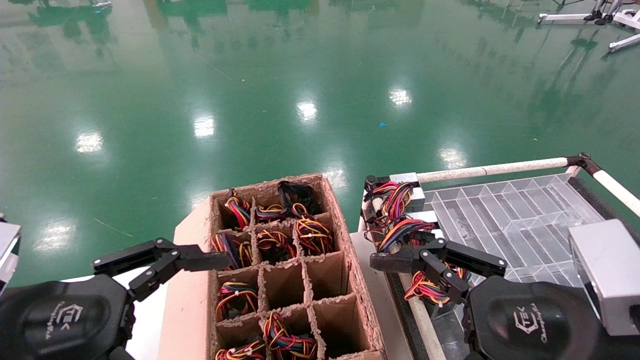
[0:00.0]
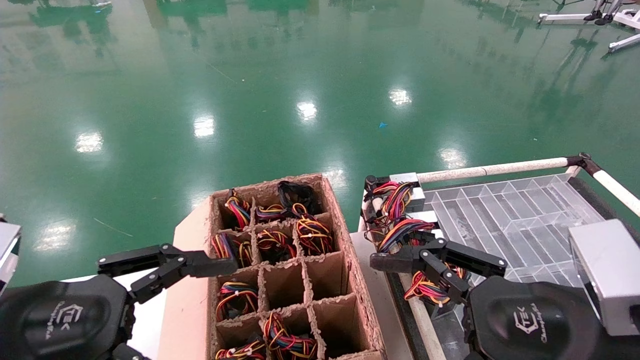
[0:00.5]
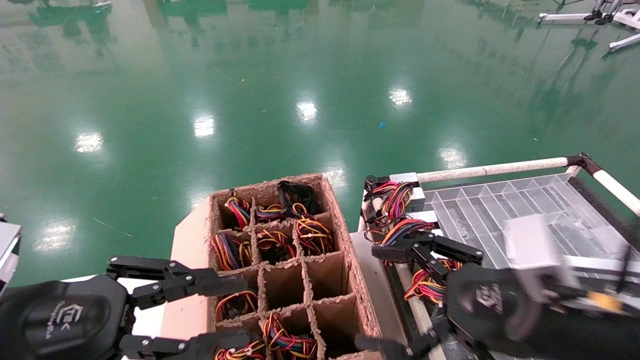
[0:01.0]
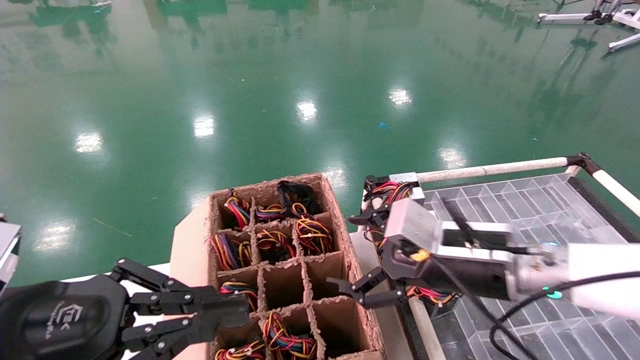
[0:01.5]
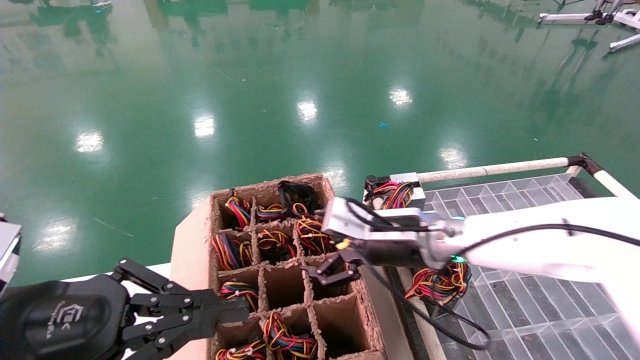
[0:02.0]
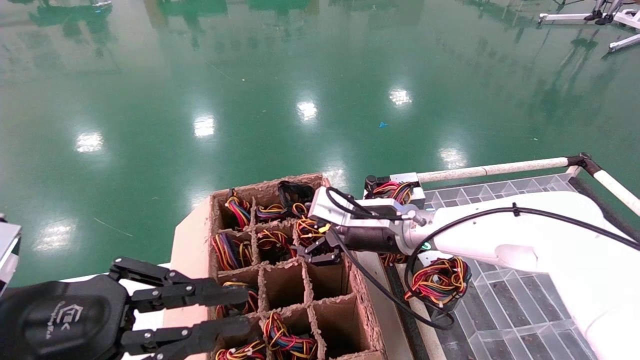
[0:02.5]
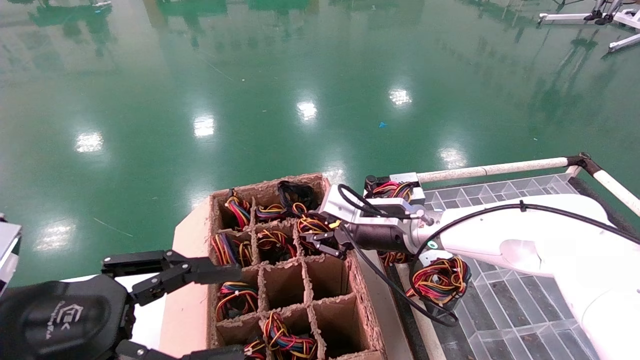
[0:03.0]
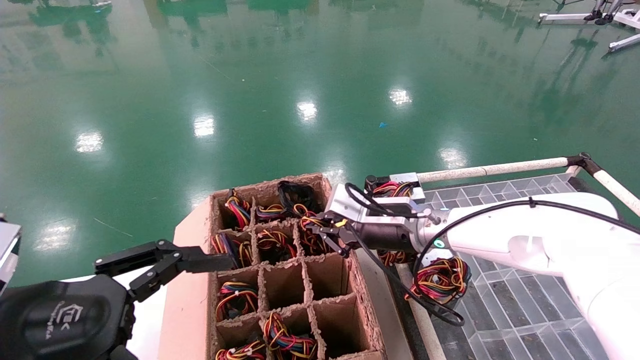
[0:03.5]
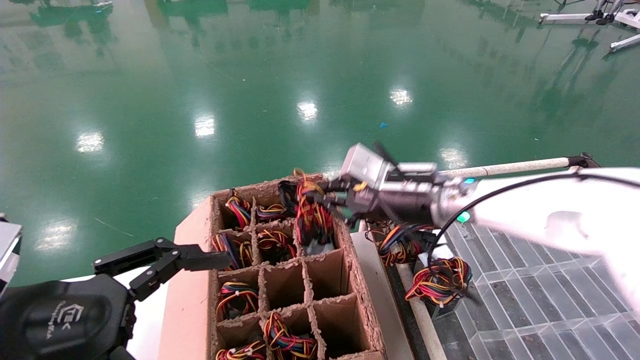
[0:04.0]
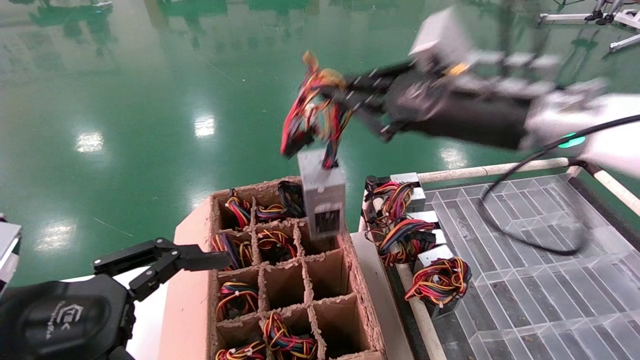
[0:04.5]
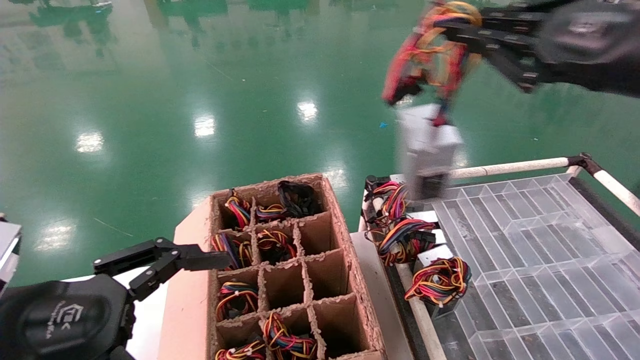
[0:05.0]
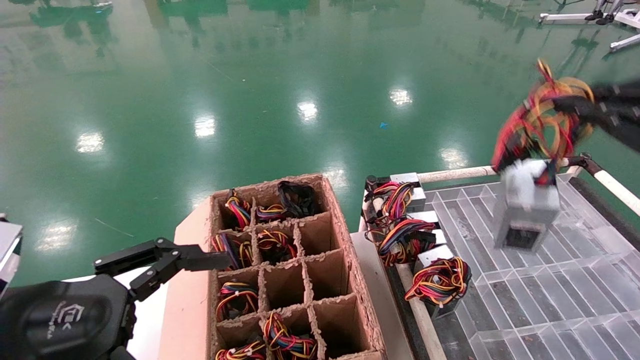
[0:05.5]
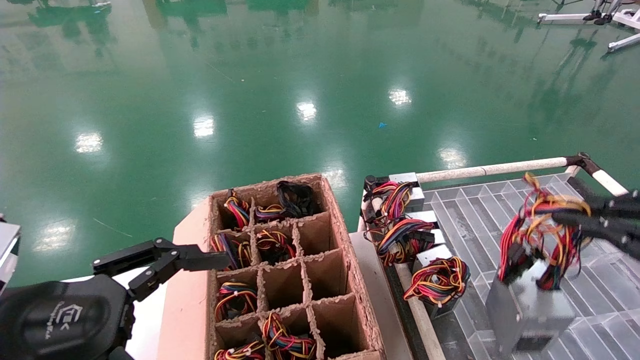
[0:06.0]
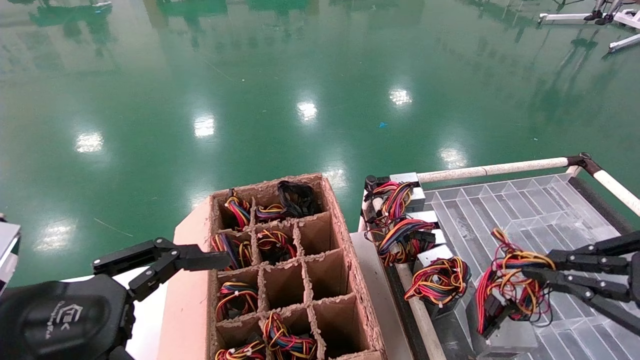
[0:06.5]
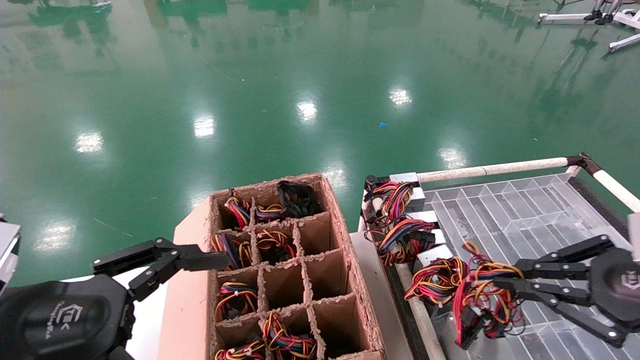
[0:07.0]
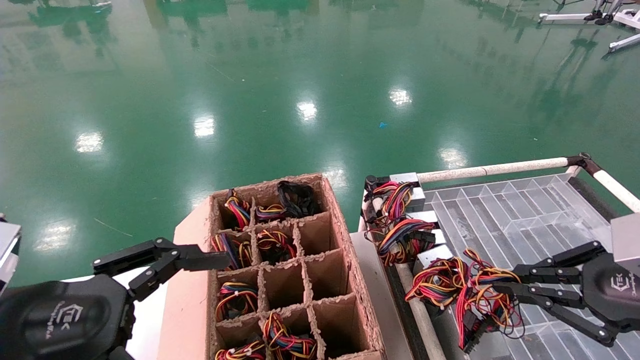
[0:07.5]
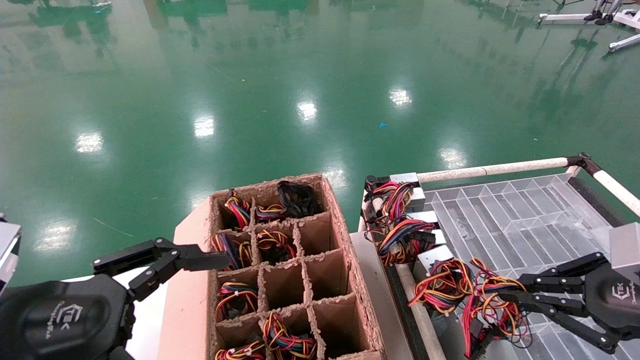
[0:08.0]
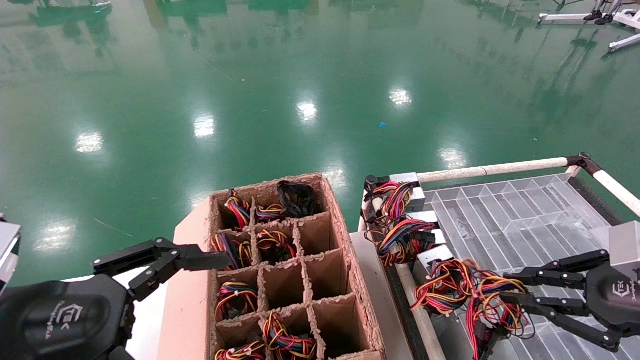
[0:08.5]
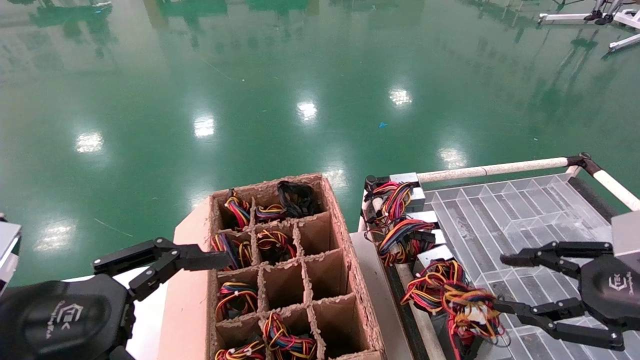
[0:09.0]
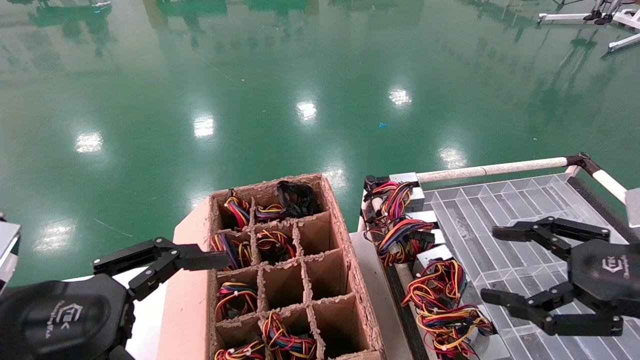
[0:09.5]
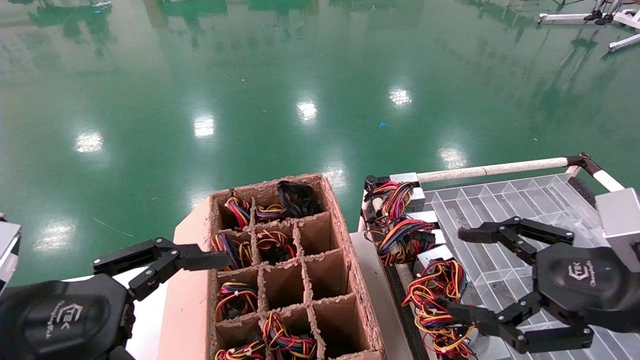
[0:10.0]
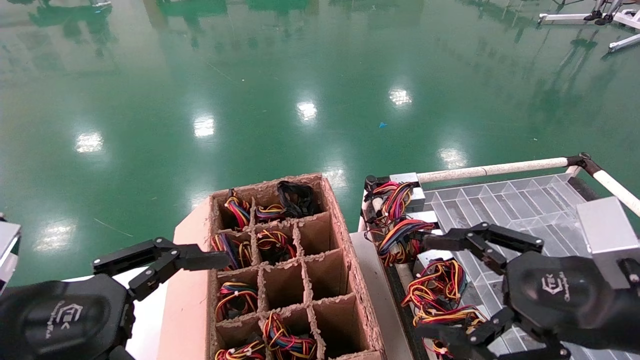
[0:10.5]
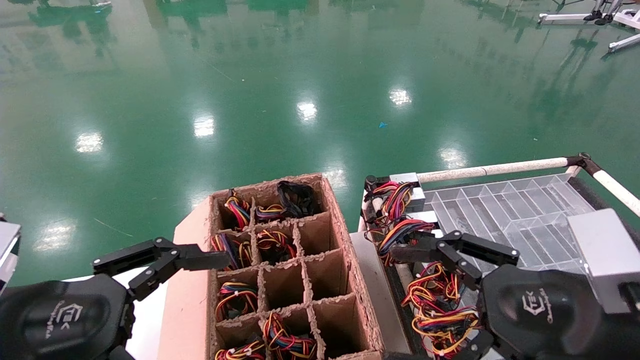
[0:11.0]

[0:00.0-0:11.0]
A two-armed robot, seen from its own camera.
Step, 0:02.0 to 0:03.5: Grab and lift the power supply from the large box.
Step, 0:04.0 to 0:08.5: Place the power supply on the operating table.
0:00.0 to 0:02.0: The left gripper closes up; the right gripper heads forward and to the left, covering about 25 cm.
0:02.0 to 0:03.5: The right gripper closes its fingers. The left gripper opens up.
0:03.5 to 0:05.5: The right gripper heads backward, to the right and upward, covering some 40 cm.
0:05.5 to 0:07.5: The right gripper goes about 15 cm downward.
0:07.5 to 0:09.0: The right gripper opens its fingers.
0:09.0 to 0:11.0: The right gripper moves to the left, roughly 10 cm, and opens.
